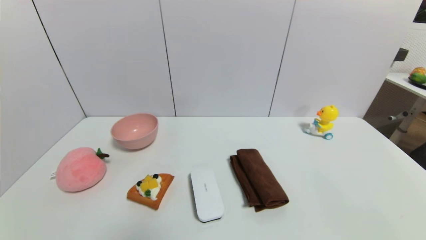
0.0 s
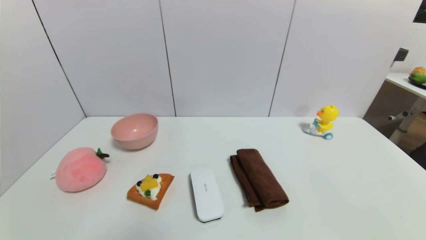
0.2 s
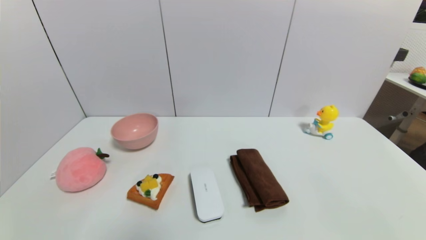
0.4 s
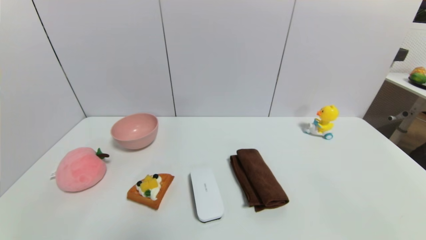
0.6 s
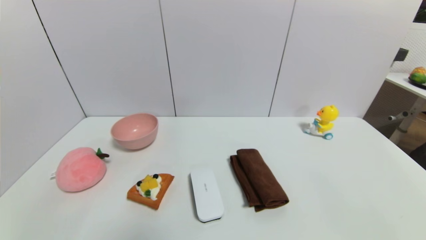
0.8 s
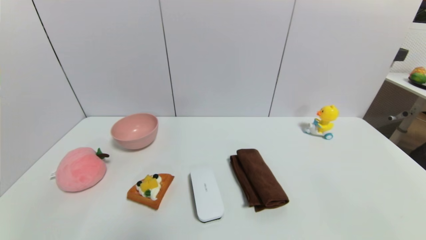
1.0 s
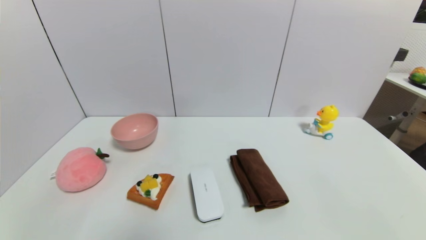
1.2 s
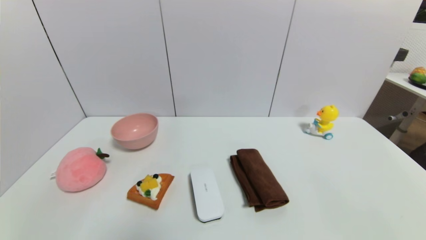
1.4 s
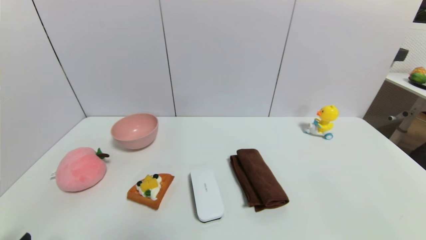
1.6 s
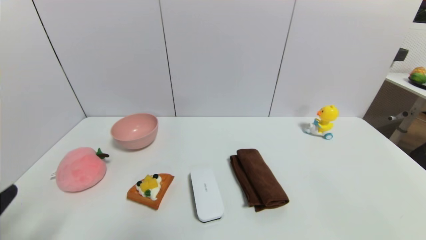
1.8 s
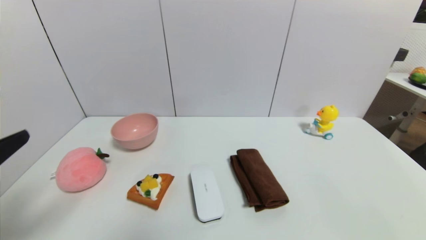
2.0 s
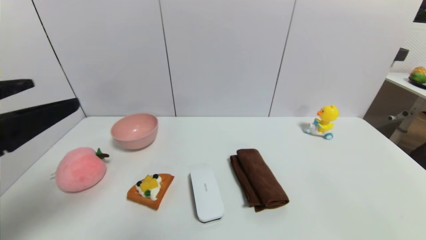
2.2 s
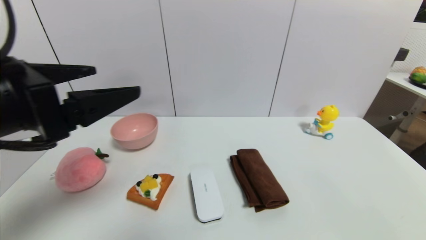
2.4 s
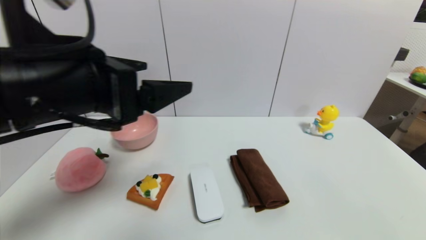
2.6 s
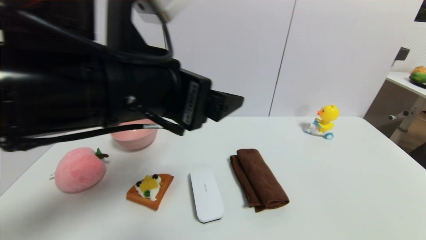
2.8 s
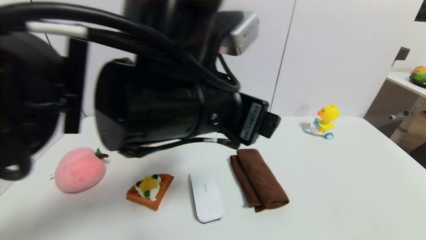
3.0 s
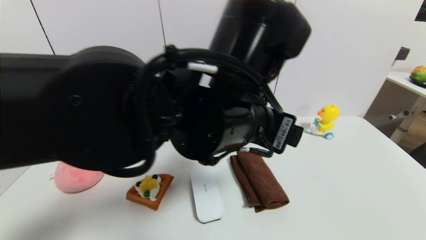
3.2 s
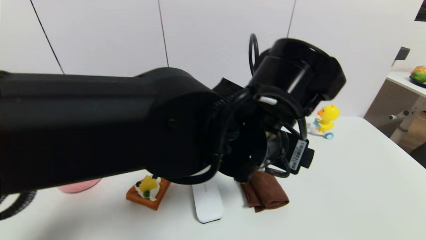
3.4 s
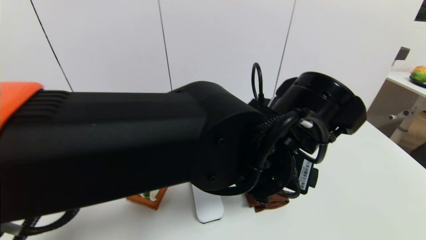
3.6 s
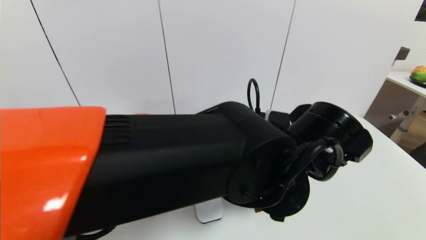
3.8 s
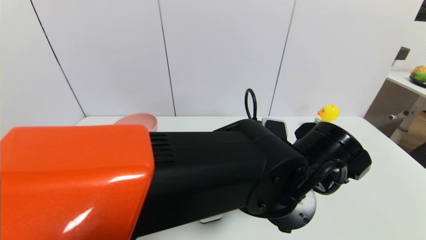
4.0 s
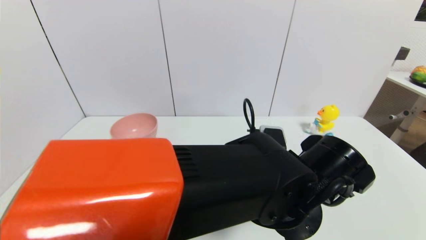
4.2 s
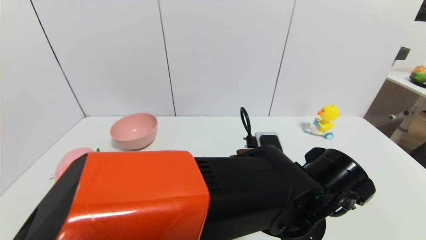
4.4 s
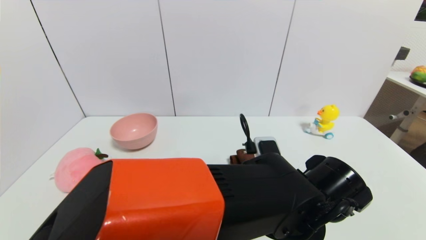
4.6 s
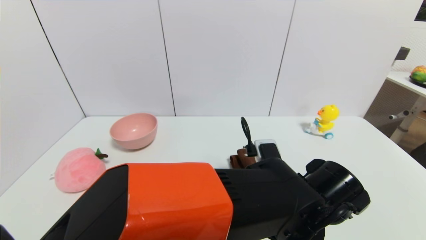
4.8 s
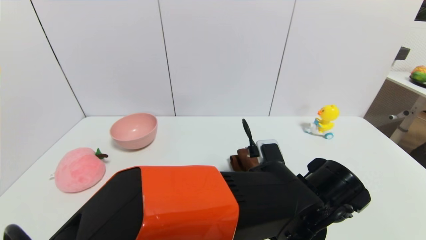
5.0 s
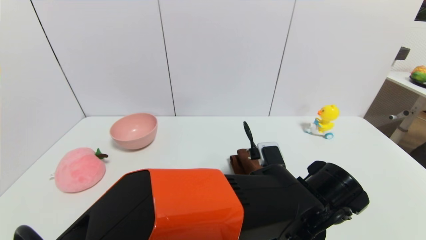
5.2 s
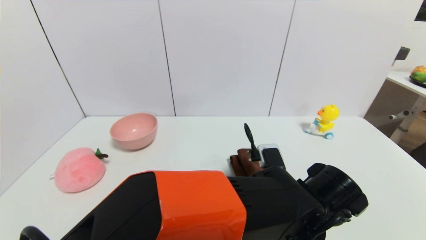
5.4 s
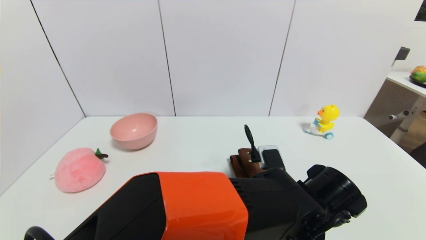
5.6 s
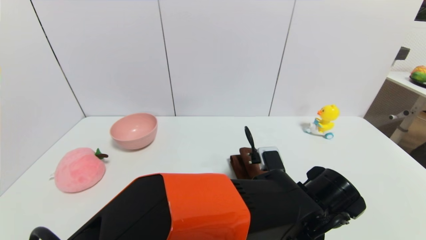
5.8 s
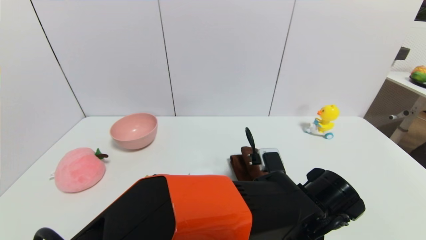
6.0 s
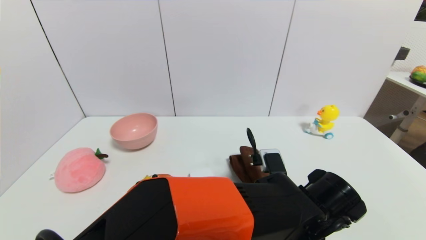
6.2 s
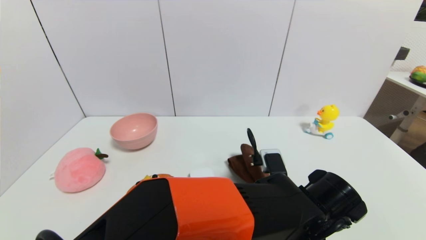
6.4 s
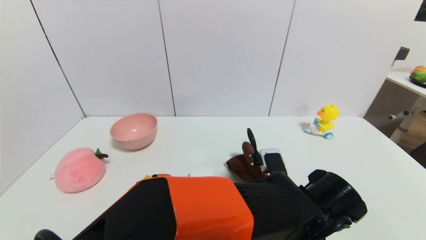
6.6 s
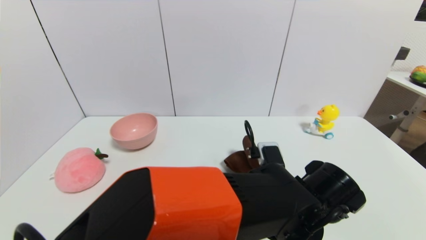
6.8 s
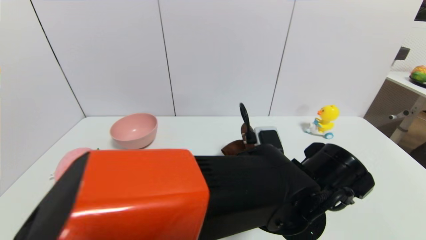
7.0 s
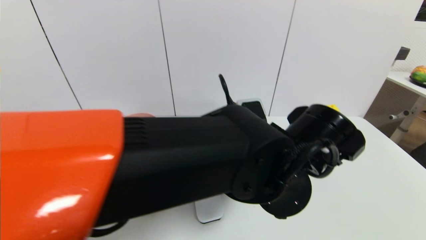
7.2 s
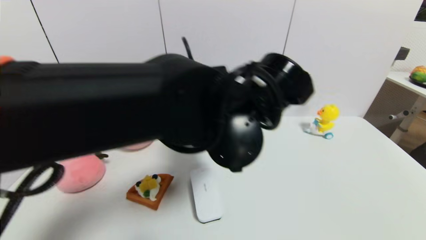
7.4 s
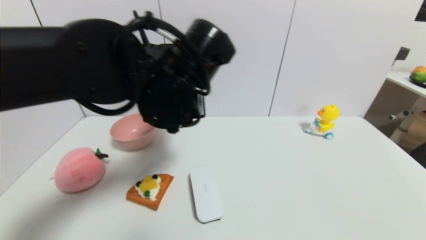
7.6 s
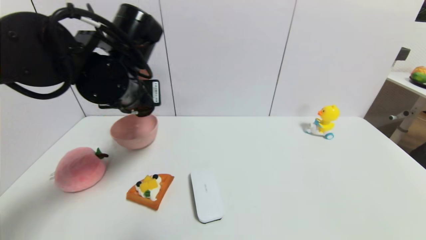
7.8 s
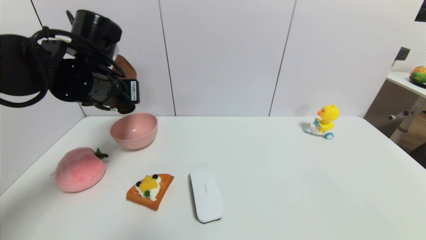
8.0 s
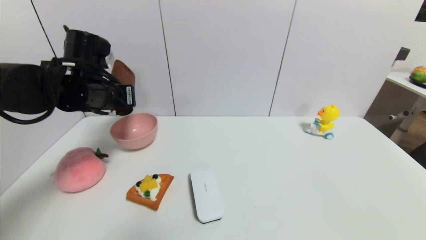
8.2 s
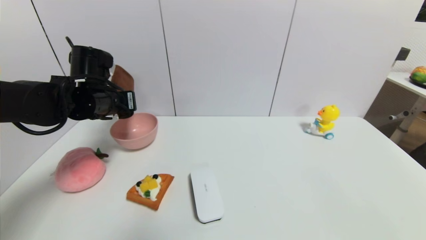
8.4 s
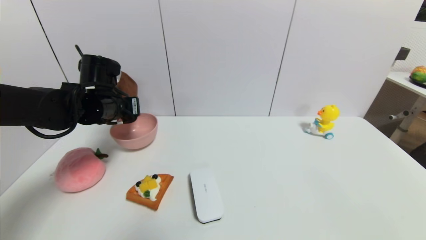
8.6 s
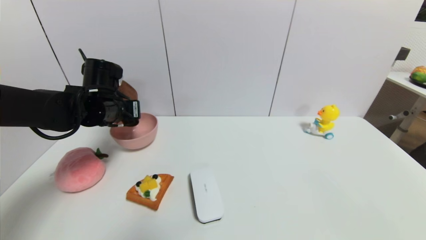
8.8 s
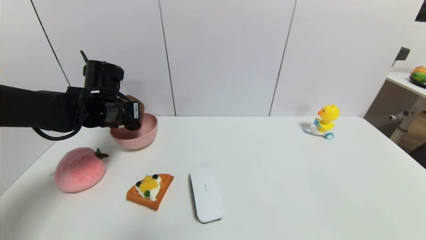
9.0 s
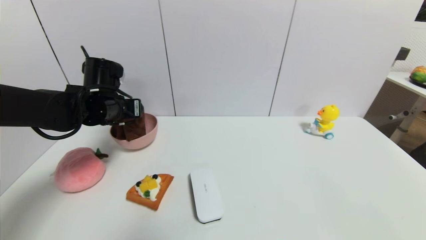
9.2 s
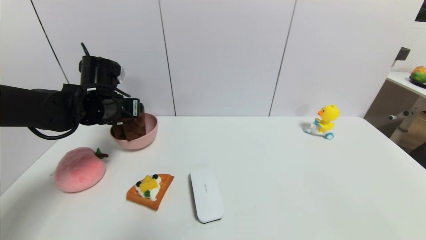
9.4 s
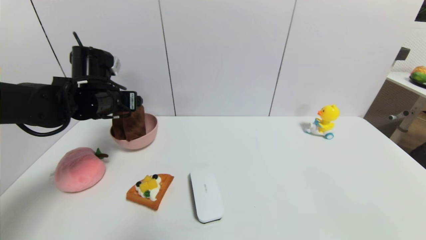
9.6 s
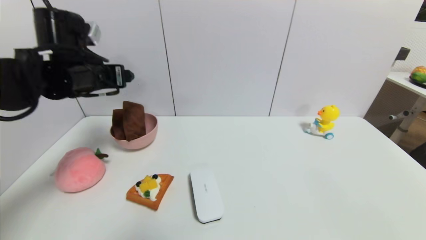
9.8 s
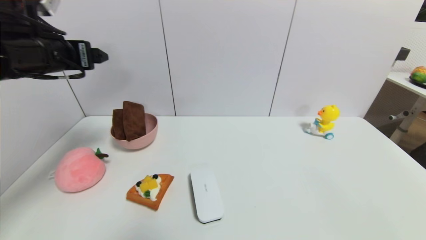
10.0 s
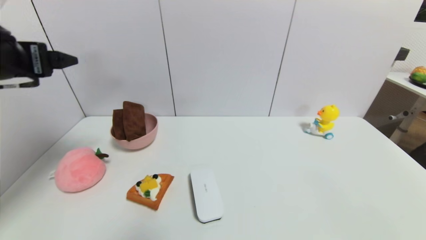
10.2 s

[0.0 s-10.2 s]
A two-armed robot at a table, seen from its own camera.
Task of the whole recording: use a gripper to pick the target object and place on the pink bowl.
Step, 0.0 to 6.6 s: Grasp the brown towel with the left gripper.
Step, 6.8 to 9.2 s: Place the brown towel on the pink bowl with the left gripper.
1.4 to 3.0 s: The left gripper goes approximately 40 cm to the right, upward and forward.
3.0 to 4.4 s: The left gripper shifts about 20 cm downward and to the right.
4.4 to 5.8 s: The left gripper shifts by some 5 cm.
5.8 to 7.2 s: The left gripper travels upward and to the left by roughly 15 cm, and closes its fingers.
7.2 to 8.8 s: The left gripper is displaced to the left and forward by some 35 cm.
8.8 to 10.2 s: The left gripper shifts approximately 20 cm backward, upward and to the left, and opens up.

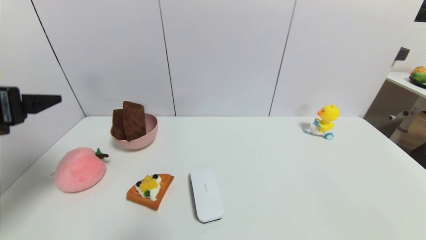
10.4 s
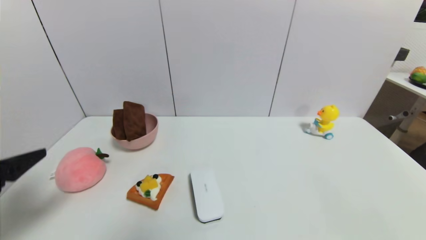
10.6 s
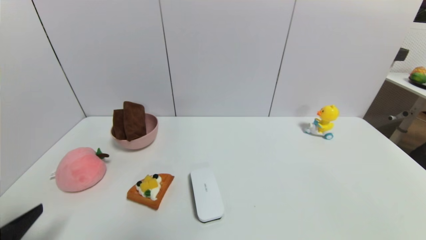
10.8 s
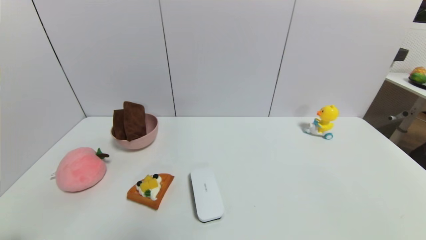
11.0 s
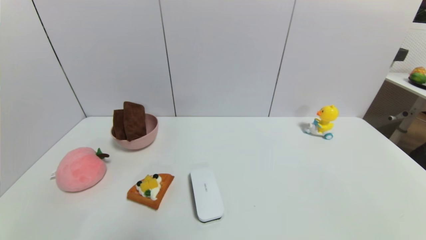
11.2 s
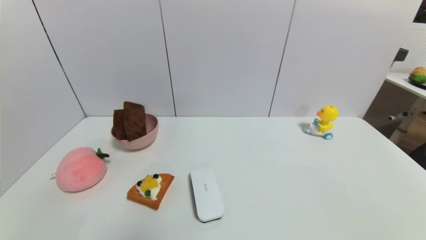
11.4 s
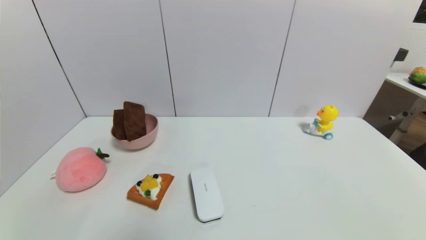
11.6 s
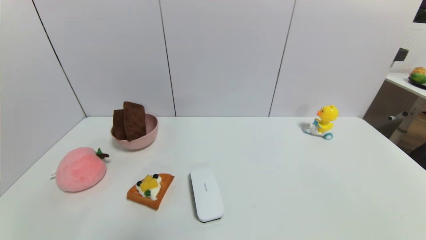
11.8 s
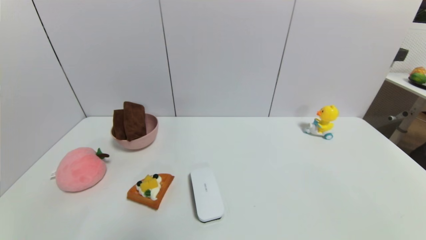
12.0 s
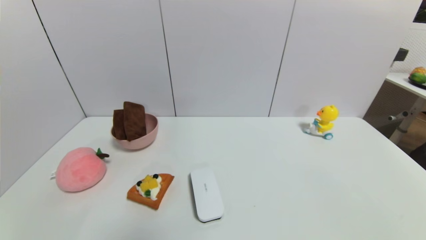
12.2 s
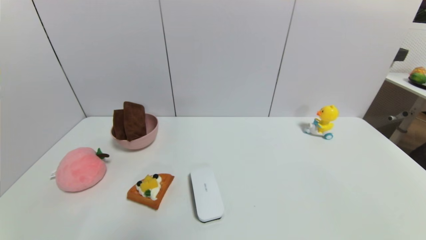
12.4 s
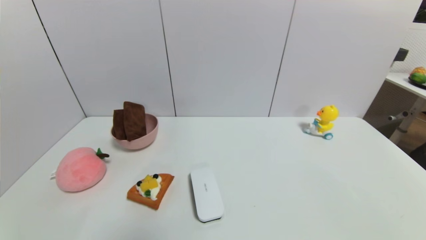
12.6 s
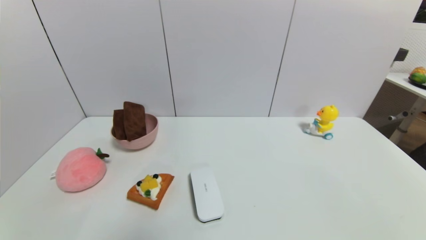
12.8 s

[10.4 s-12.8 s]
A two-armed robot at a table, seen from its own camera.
Task of the whole recording: use a gripper to pick the target object and place on the pink bowl.
10.4 to 11.6 s: The left gripper travels downward and backward by approximately 30 cm.
11.6 to 12.8 s: Both grippers stay about where they are.
